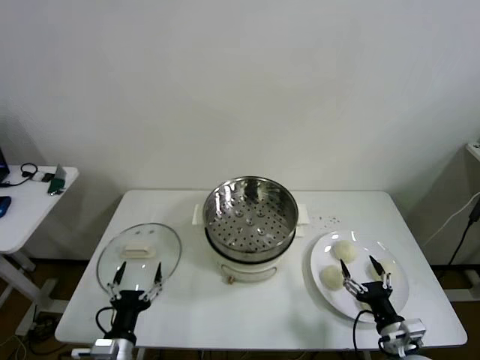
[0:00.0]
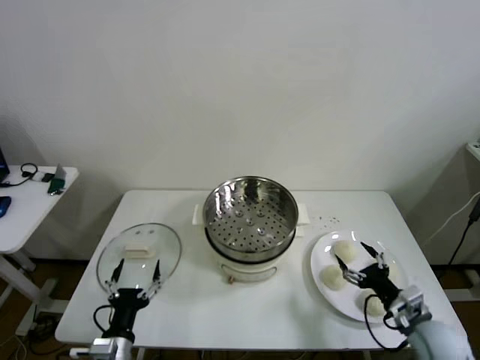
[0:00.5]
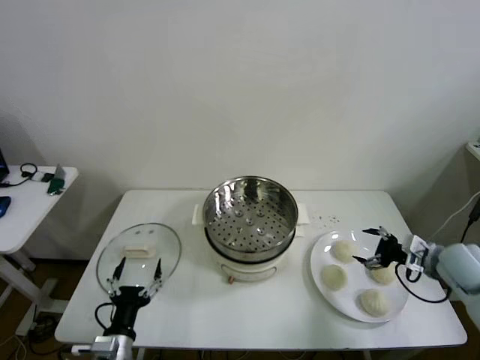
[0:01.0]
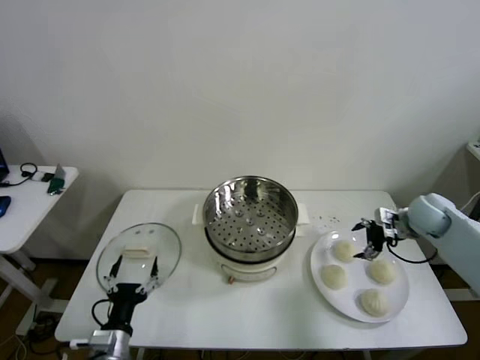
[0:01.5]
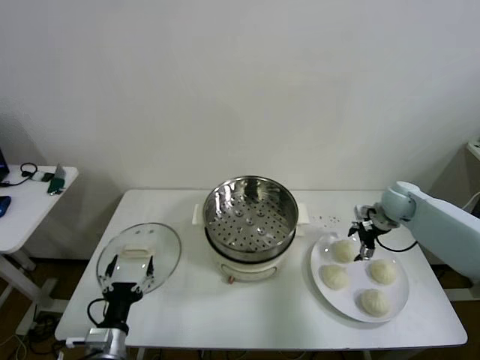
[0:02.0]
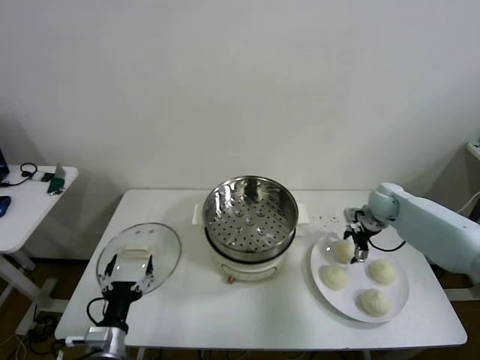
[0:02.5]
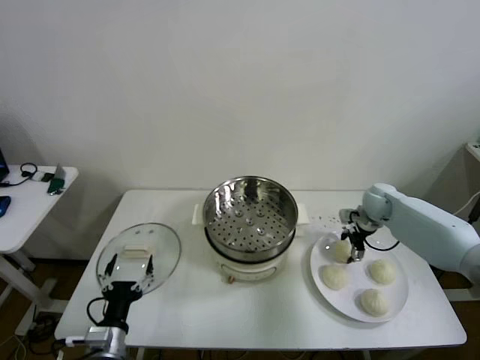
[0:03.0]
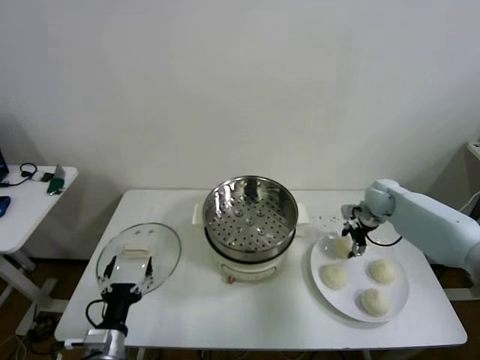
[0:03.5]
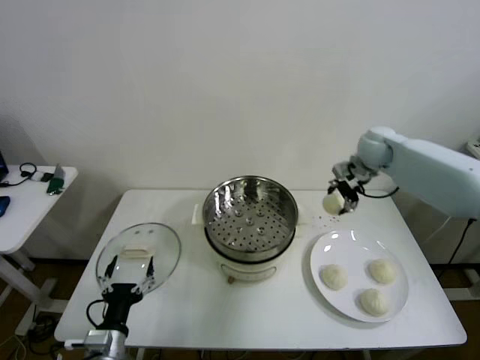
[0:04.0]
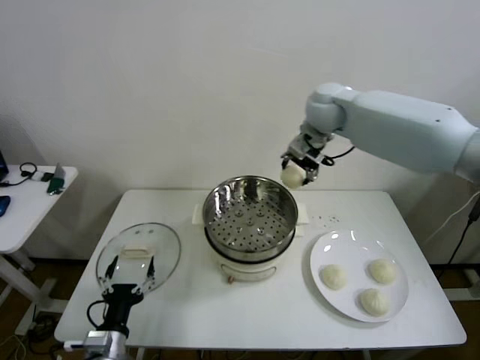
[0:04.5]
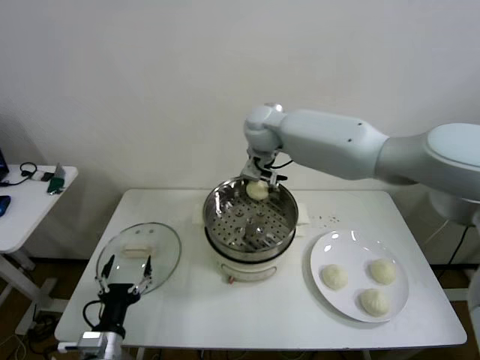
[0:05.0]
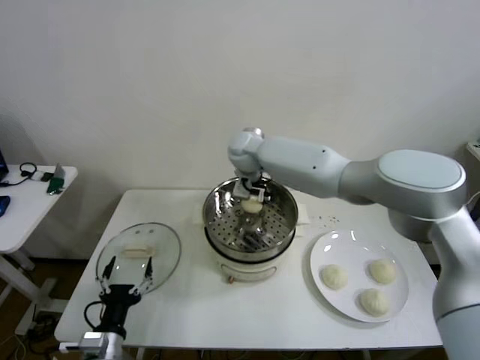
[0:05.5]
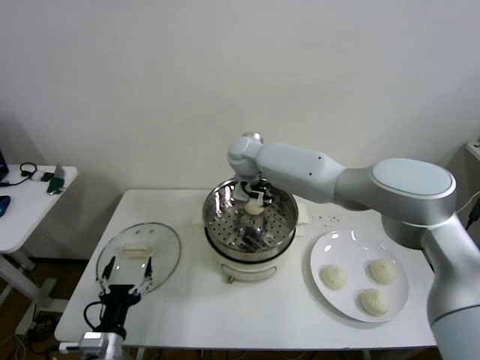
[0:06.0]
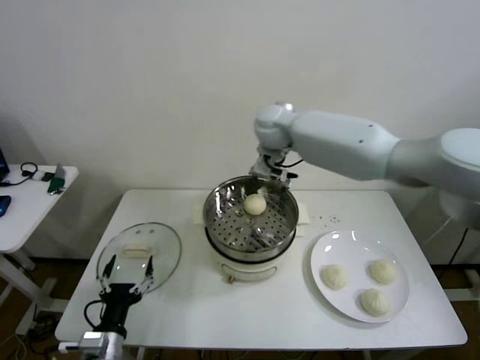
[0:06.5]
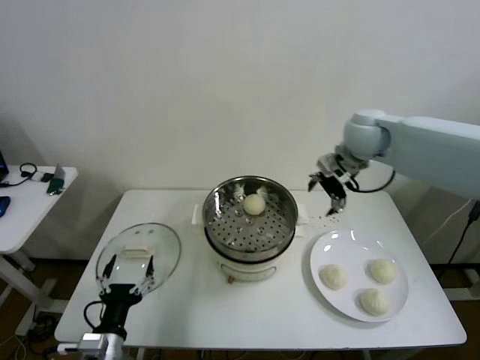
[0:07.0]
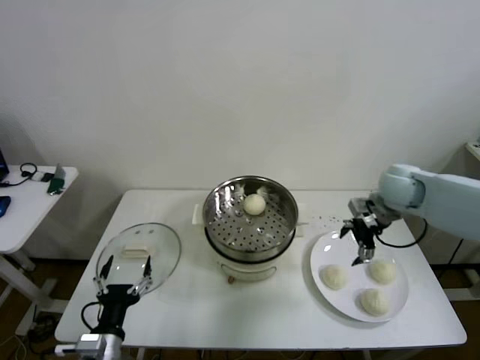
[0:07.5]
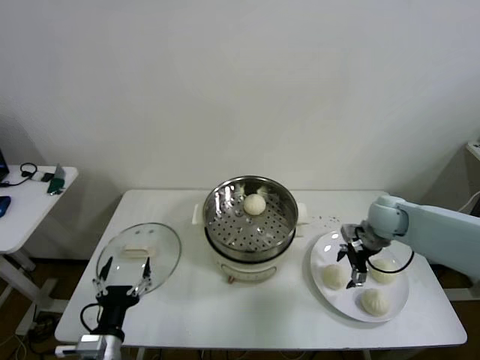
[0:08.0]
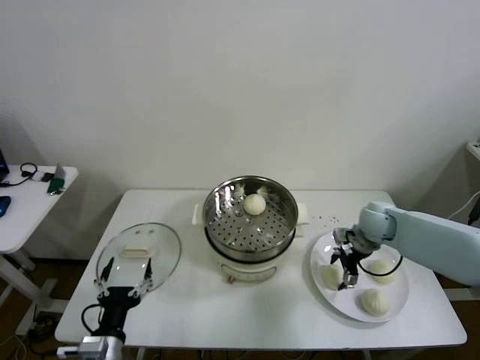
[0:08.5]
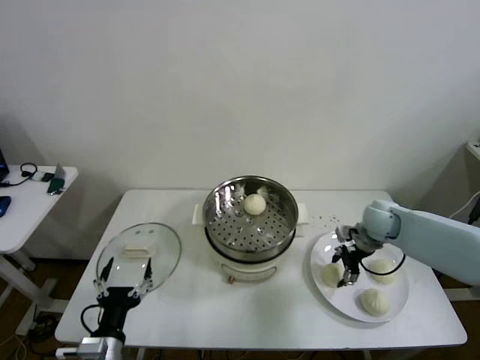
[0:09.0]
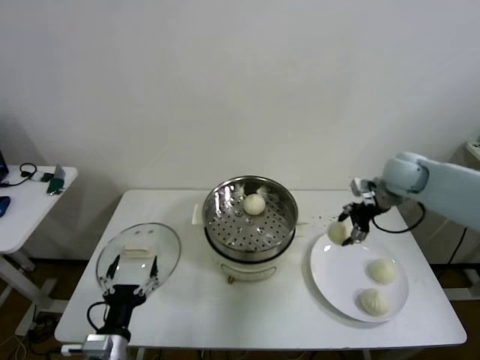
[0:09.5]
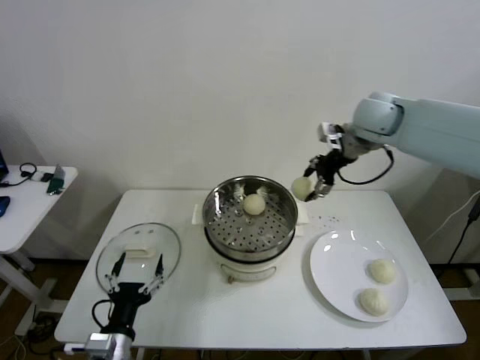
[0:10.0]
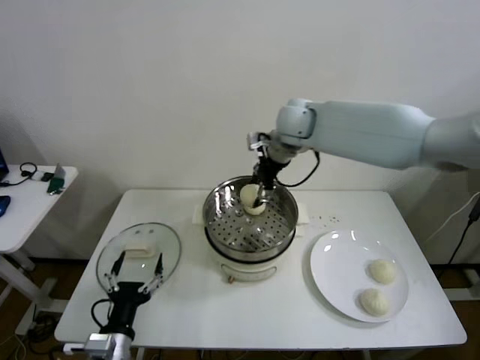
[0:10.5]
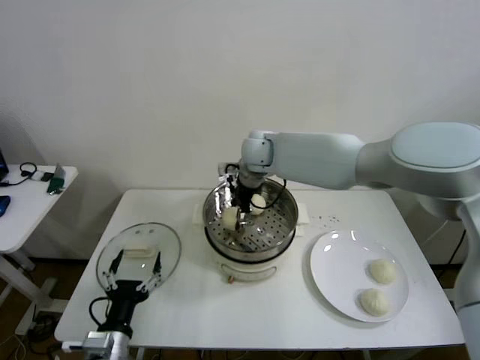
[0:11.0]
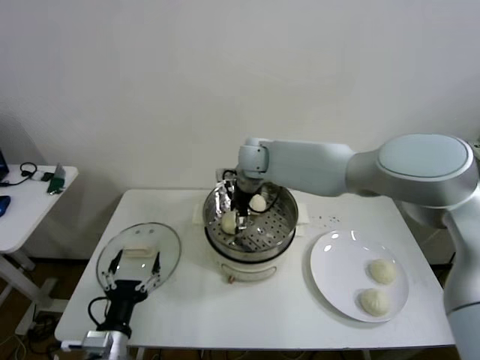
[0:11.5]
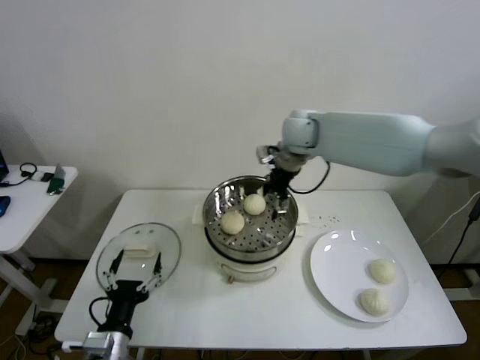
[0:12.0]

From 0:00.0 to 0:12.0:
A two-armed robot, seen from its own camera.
Step, from 0:00.0 to 0:03.0: Grasp the baozi in the plate with right gripper.
Step, from 0:03.5 to 0:05.5: Place the baozi on the steamer with right gripper.
Step, from 0:06.0 to 0:08.5: Grasp the baozi in the plate with right gripper.
Step, from 0:09.0 to 0:11.0: Place the baozi on the steamer with right gripper.
From 0:02.0 to 0:04.0: The right gripper travels upward and to the left by some 20 cm, and closes.
From 0:04.0 to 0:06.0: The right gripper travels to the left by some 30 cm, and opens.
From 0:06.0 to 0:08.0: The right gripper travels to the right by roughly 35 cm.
From 0:08.0 to 0:10.0: The right gripper moves upward and to the left, some 25 cm, and closes up.
From 0:10.0 to 0:12.0: The right gripper goes roughly 10 cm to the left, and opens its fingers.

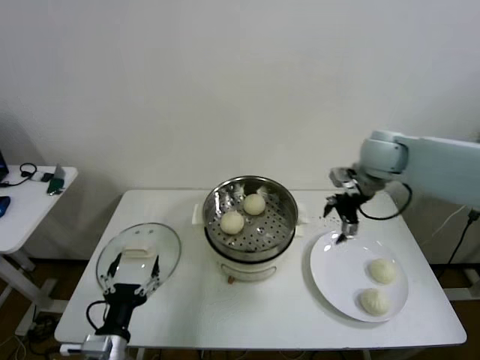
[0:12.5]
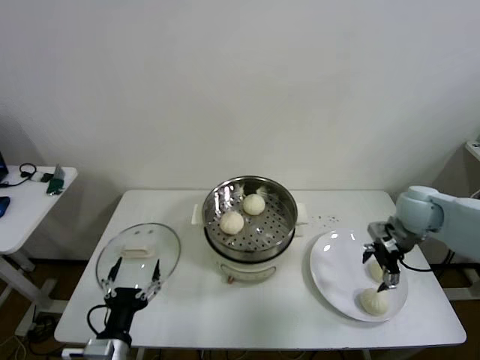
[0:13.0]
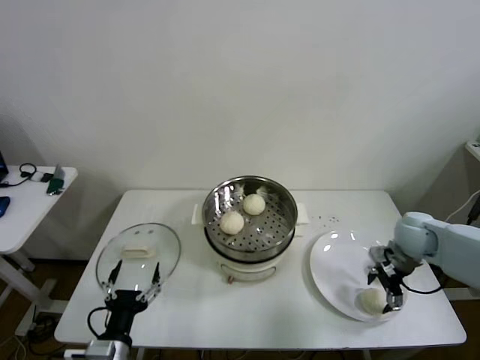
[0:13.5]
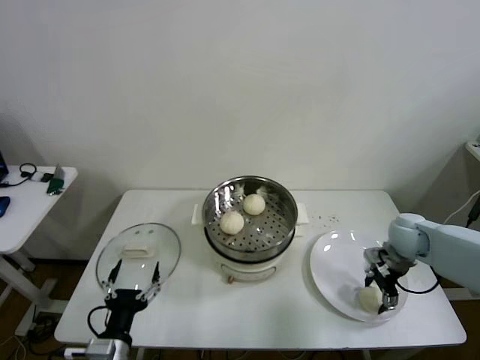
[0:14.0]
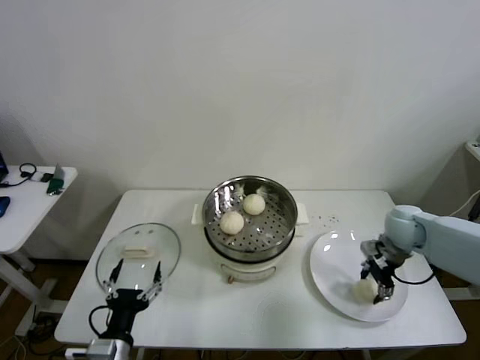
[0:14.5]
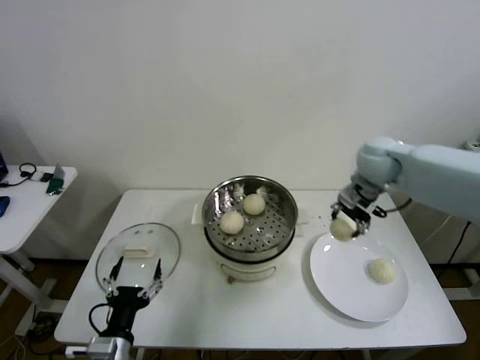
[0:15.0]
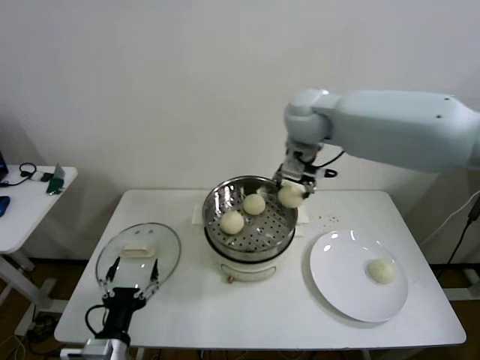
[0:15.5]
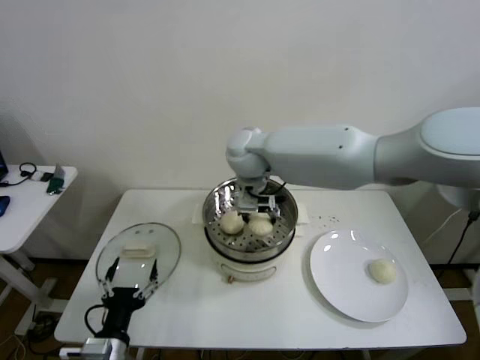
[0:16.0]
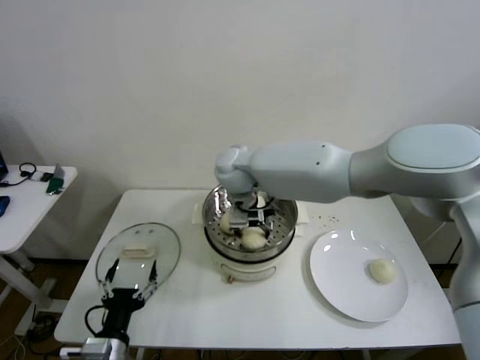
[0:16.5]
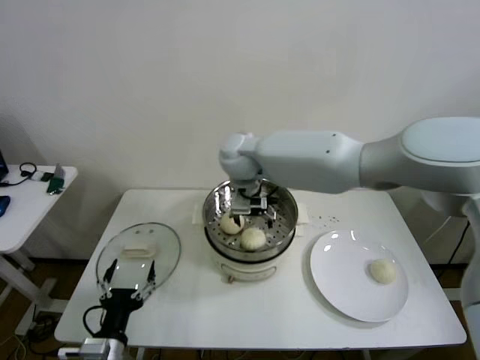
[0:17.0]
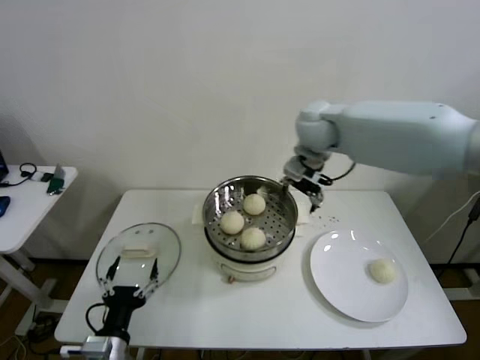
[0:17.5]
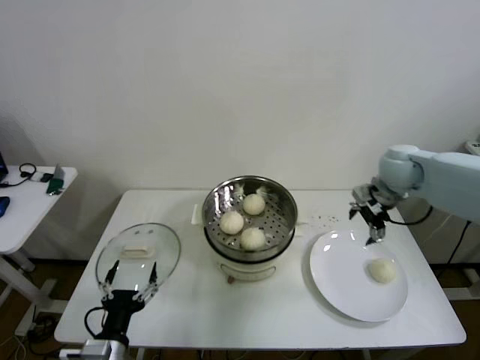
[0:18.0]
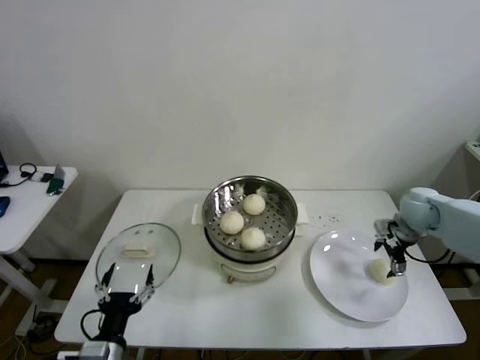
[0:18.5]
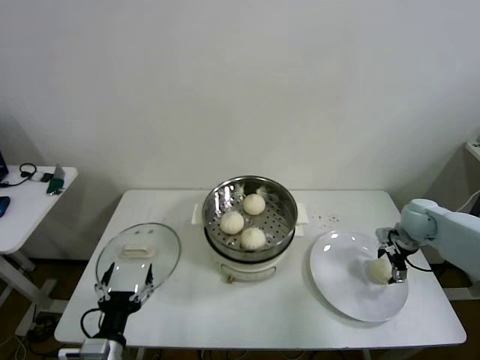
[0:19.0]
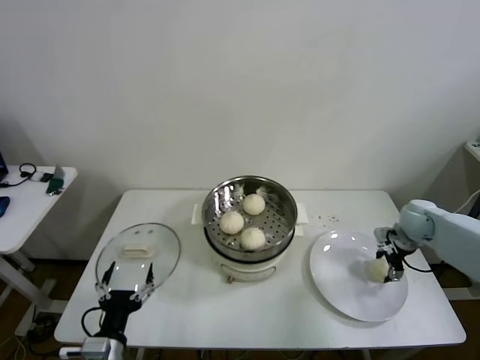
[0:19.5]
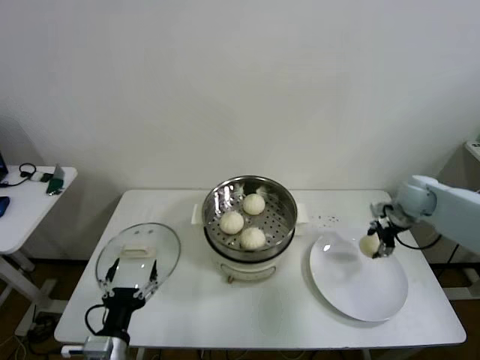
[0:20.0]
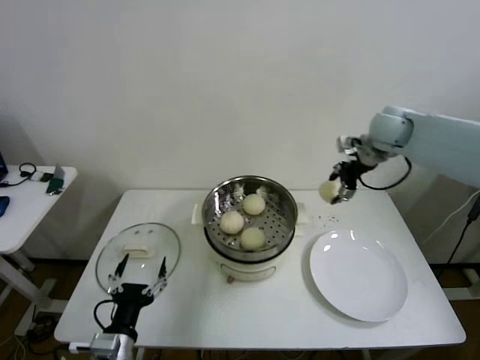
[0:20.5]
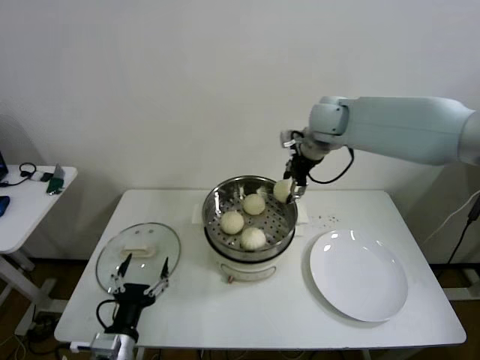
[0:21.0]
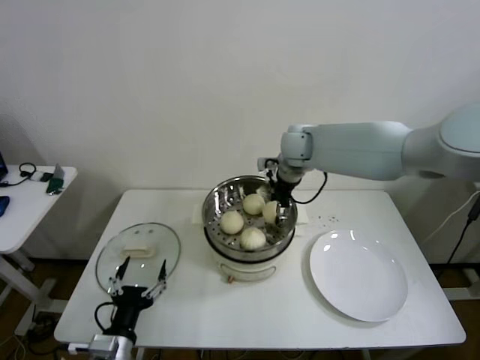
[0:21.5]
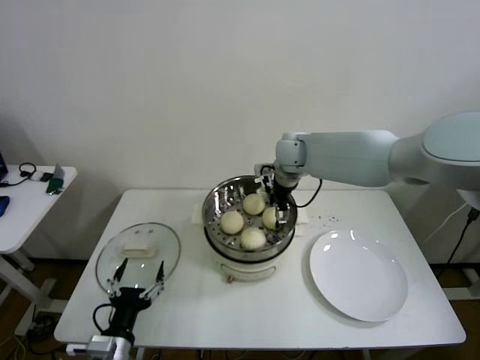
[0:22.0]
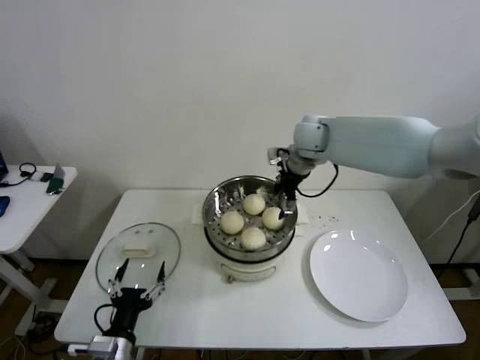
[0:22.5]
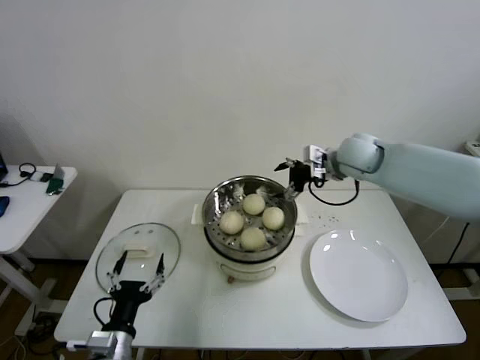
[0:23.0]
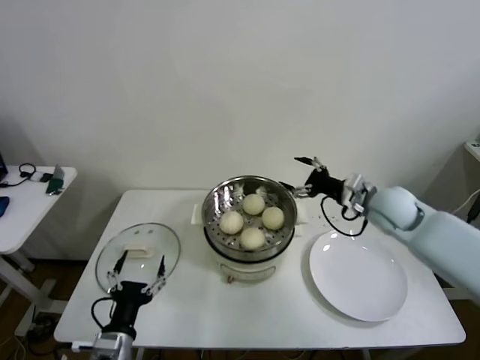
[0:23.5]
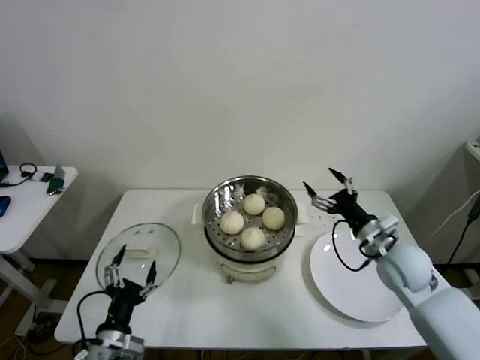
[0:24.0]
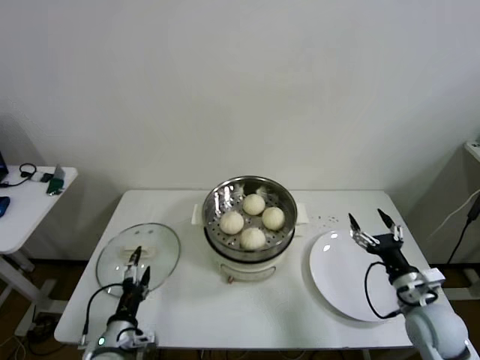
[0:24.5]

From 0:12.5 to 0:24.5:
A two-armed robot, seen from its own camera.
Step, from 0:12.5 to 0:14.0: Grasp the baozi in the plate with right gripper.
Step, from 0:14.5 to 0:16.5: Place the baozi on the steamer with right gripper.
Step, from 0:17.0 to 0:19.0: Grasp the baozi in the plate with right gripper.
Step, from 0:19.5 to 0:21.5: Place the baozi on the steamer with right gripper.
From 0:12.5 to 0:14.5: The right gripper shifts some 15 cm downward and to the right, and closes up.
From 0:14.5 to 0:16.5: The right gripper travels to the left by roughly 40 cm, and opens up.
From 0:16.5 to 0:18.5: The right gripper is displaced to the right by about 40 cm, and opens its fingers.
From 0:18.5 to 0:20.5: The right gripper travels upward, to the left and forward by approximately 25 cm, and closes its fingers.
From 0:20.5 to 0:22.5: The right gripper moves to the left, some 15 cm, and opens.
From 0:22.5 to 0:24.5: The right gripper moves backward, downward and to the right, roughly 50 cm. The left gripper ends up roughly 5 cm from where it was.

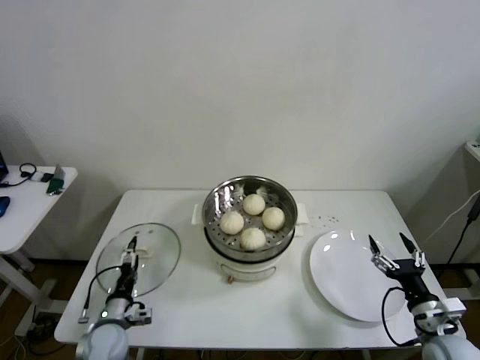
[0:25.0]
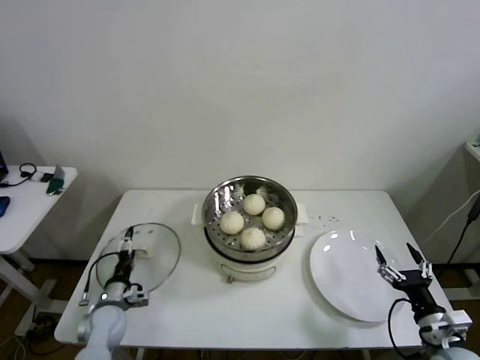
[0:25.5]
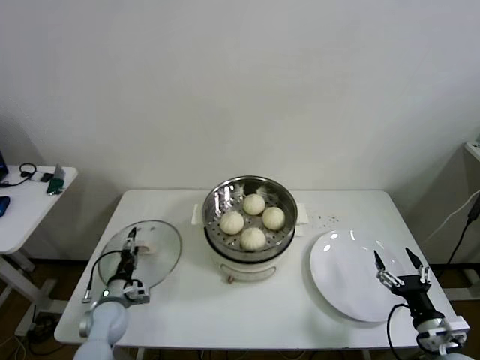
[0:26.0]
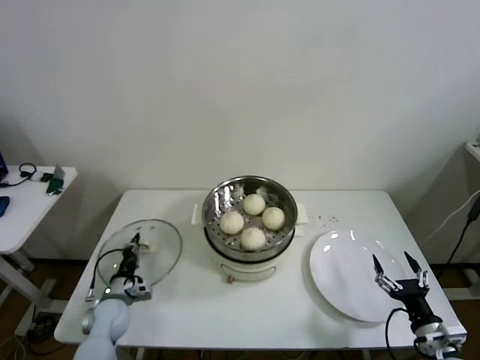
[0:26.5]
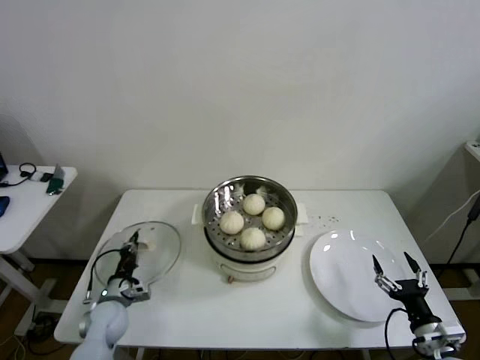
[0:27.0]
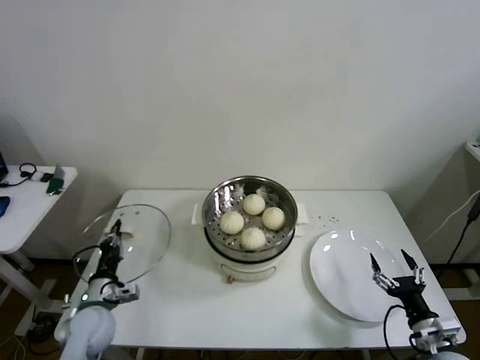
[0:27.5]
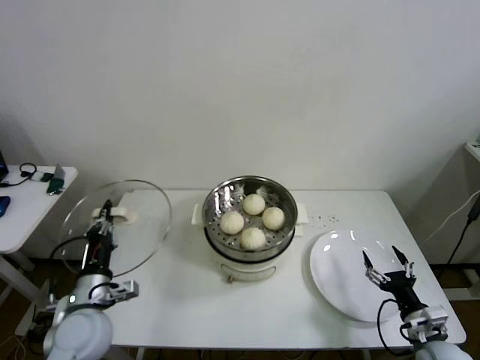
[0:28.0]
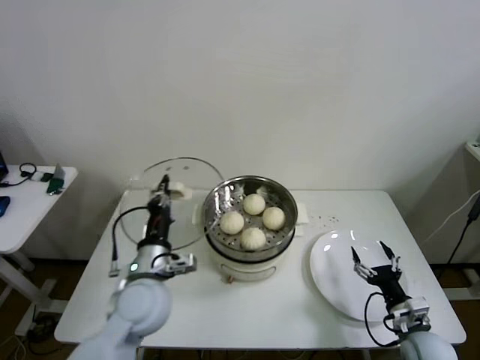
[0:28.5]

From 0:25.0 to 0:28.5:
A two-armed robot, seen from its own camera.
From 0:25.0 to 0:27.0: The left gripper is displaced forward by roughly 5 cm, and closes its fingers.
From 0:27.0 to 0:28.5: The right gripper moves forward, approximately 5 cm, while the left gripper moves upward and to the right, approximately 25 cm.
